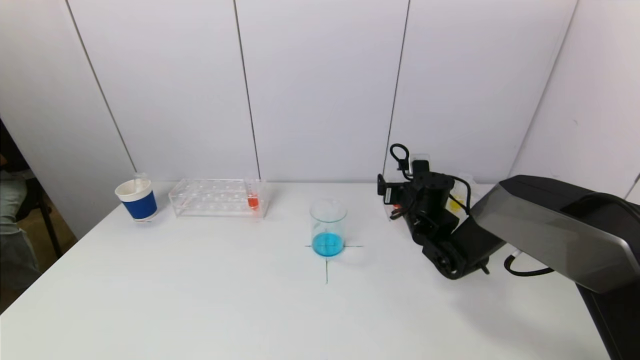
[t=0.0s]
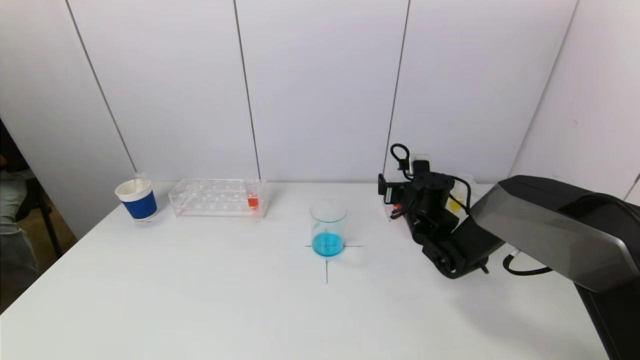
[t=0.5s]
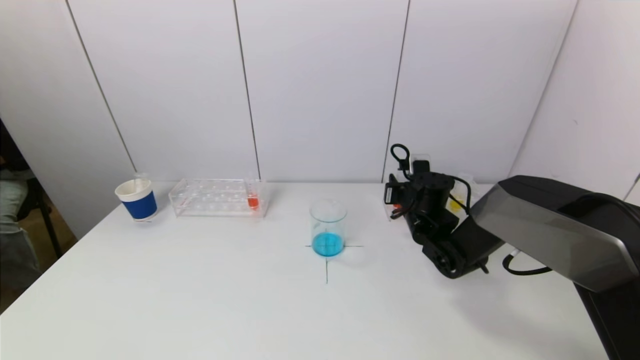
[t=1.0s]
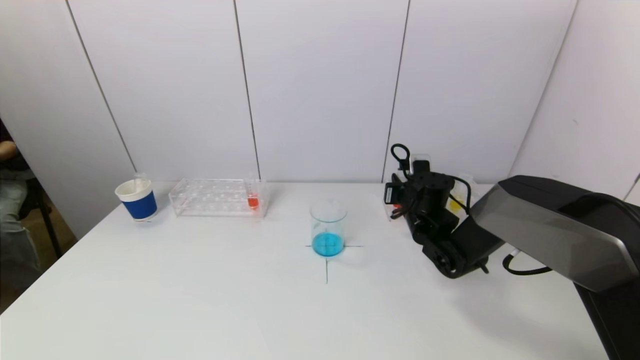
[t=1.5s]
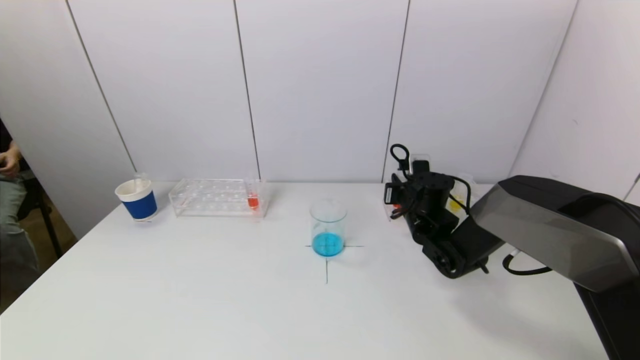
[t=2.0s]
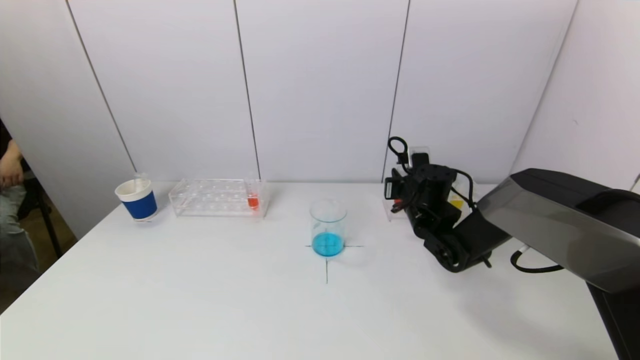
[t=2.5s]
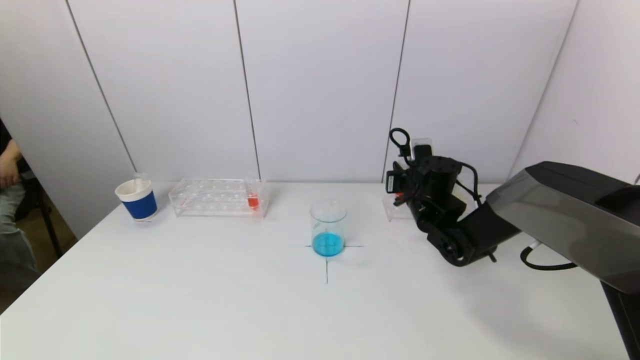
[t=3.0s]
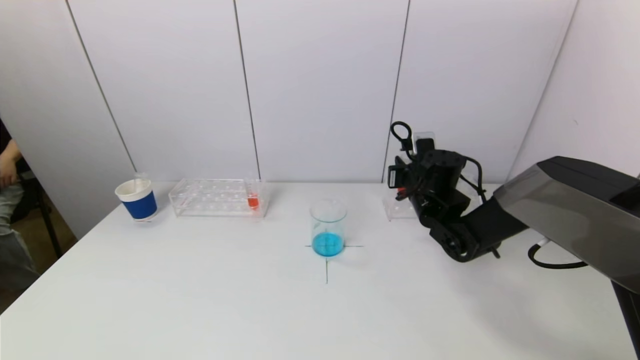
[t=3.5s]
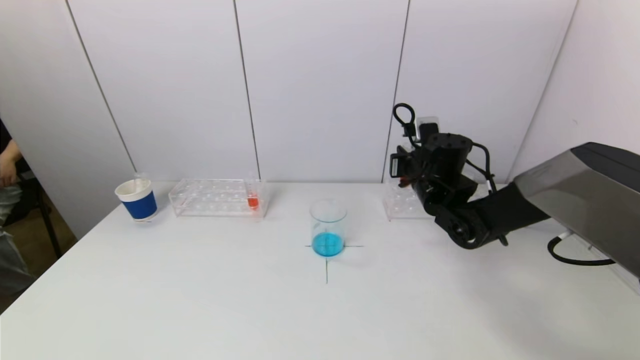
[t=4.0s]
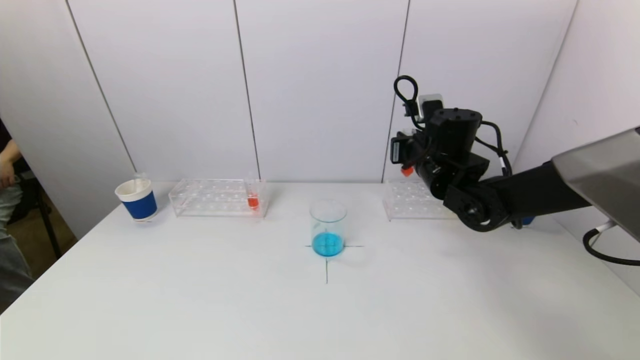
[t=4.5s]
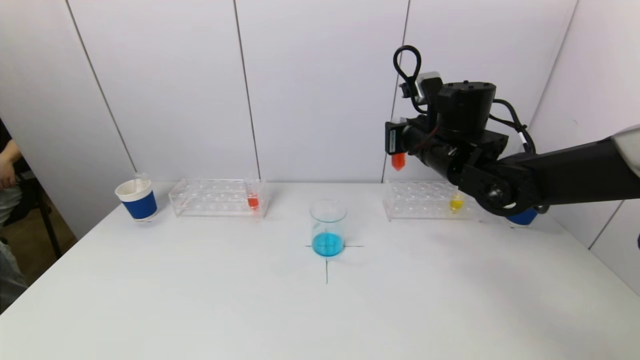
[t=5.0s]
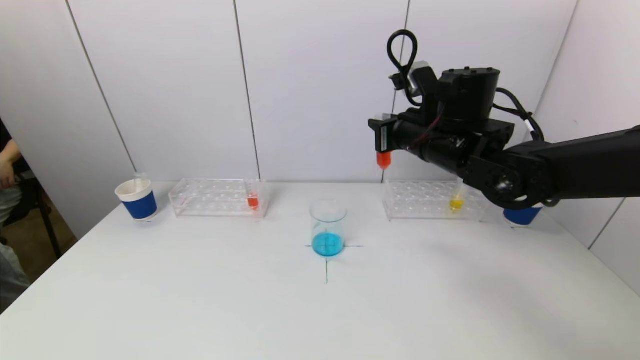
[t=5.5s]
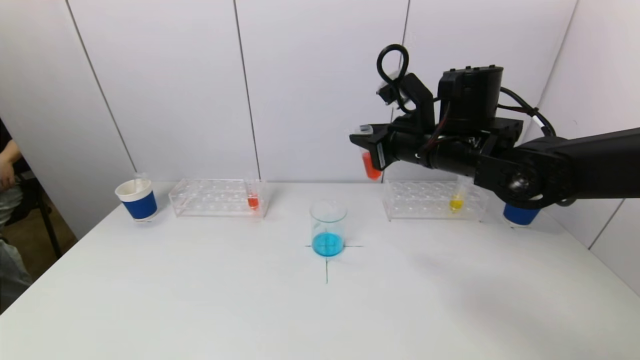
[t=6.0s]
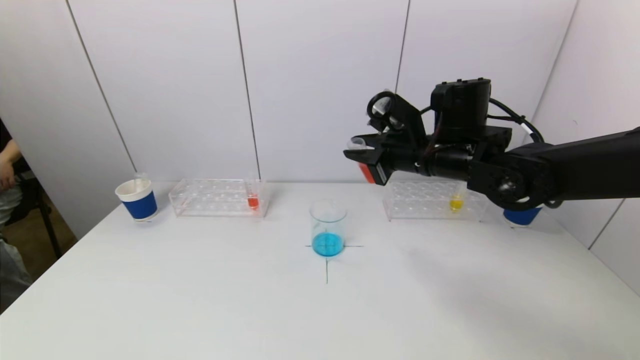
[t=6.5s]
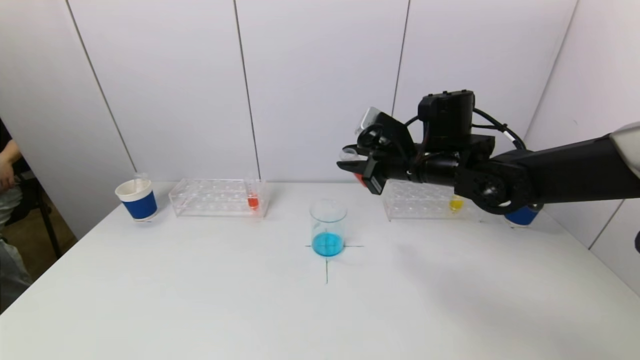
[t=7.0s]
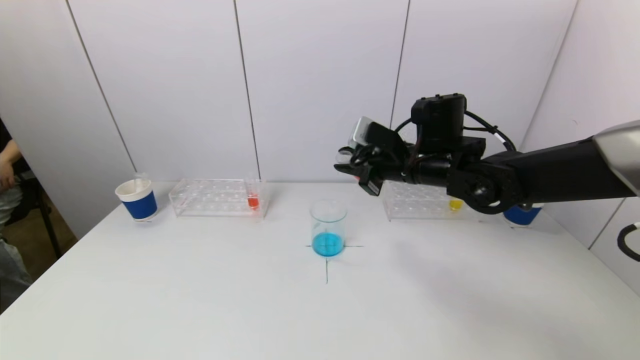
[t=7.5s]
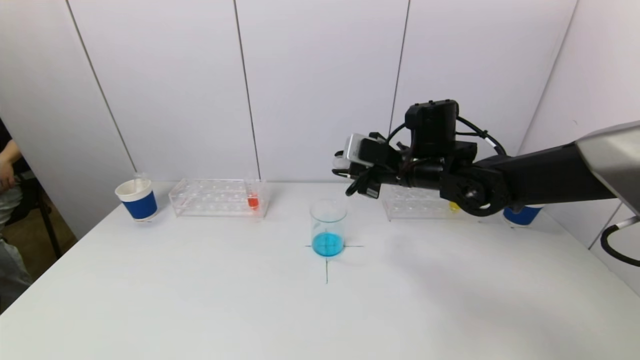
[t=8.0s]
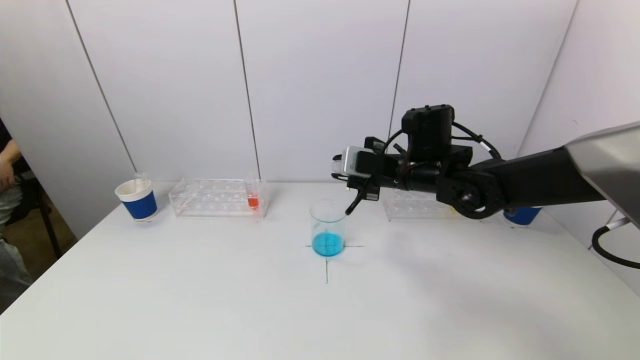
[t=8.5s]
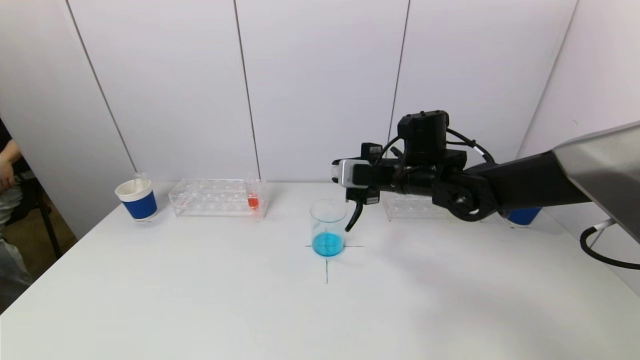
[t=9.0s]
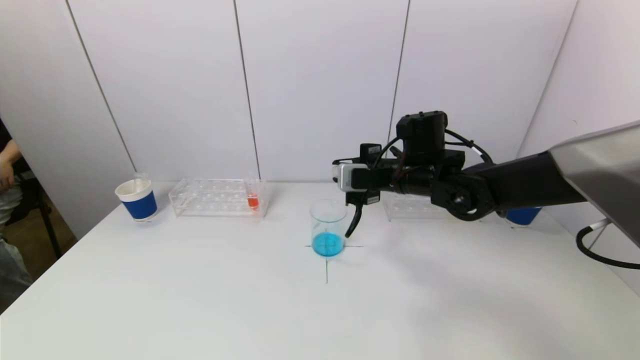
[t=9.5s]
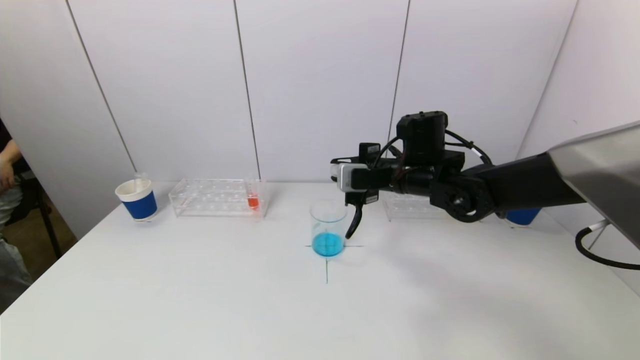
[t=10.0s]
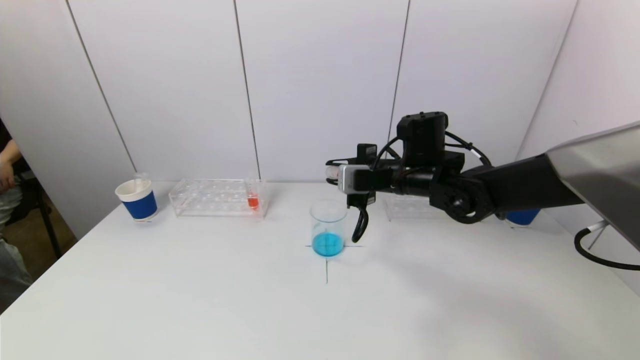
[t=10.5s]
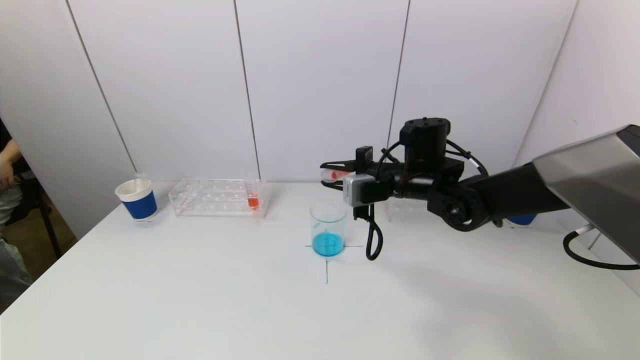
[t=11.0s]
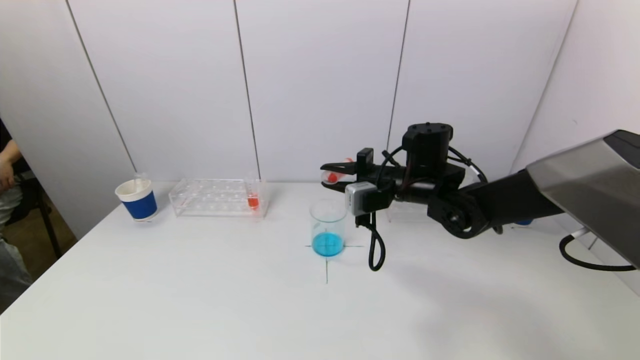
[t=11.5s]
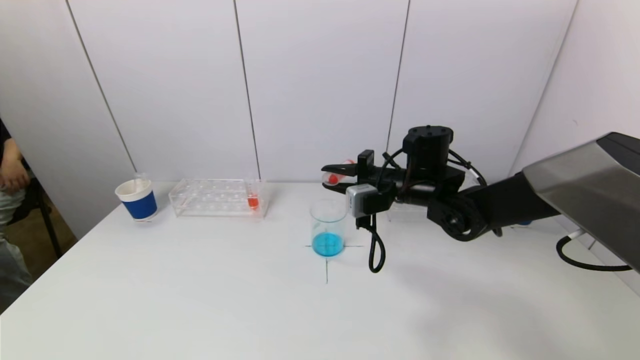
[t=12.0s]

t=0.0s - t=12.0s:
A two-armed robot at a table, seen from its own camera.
Task of the whole recording: pick up a test tube with pigment on left test tube rack and a test tube with pigment on right test tube rack by grippers and pour them into the beaker.
t=0.0s - t=2.0s: The right gripper closes up.
t=2.0s - t=4.0s: The right gripper goes roughly 10 cm upward.
t=4.0s - t=6.0s: The right gripper shifts about 10 cm upward and backward.
t=6.0s - t=8.0s: The right gripper ends up approximately 5 cm from where it was.
t=8.0s - t=10.0s: The grippers move only a little.
t=10.0s - t=12.0s: The grippers make only small movements.

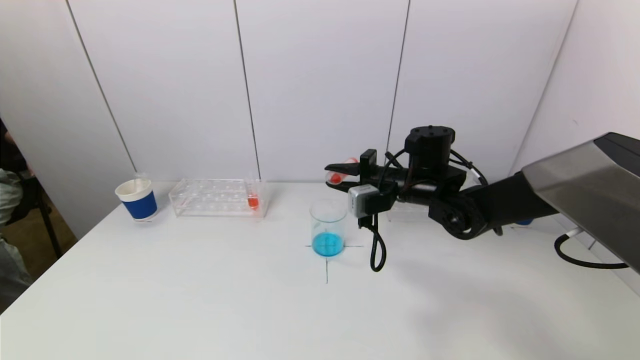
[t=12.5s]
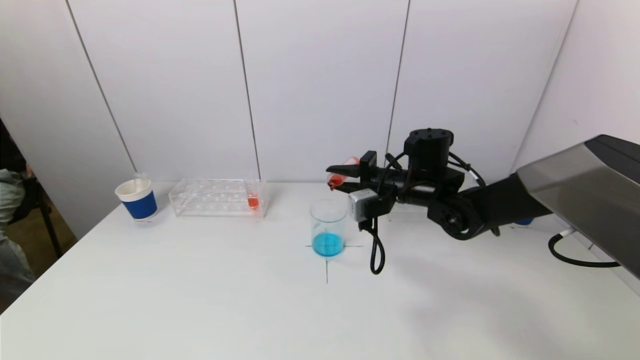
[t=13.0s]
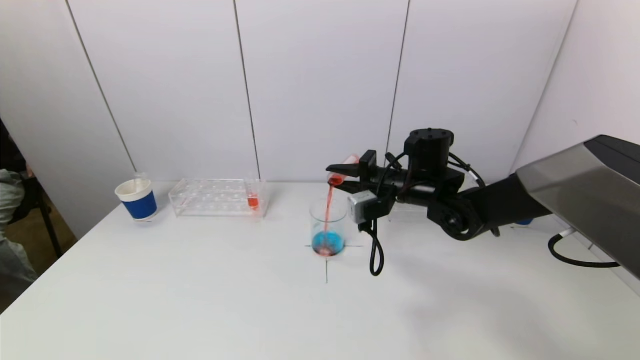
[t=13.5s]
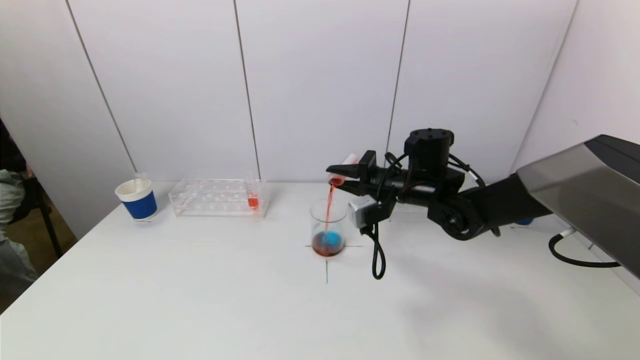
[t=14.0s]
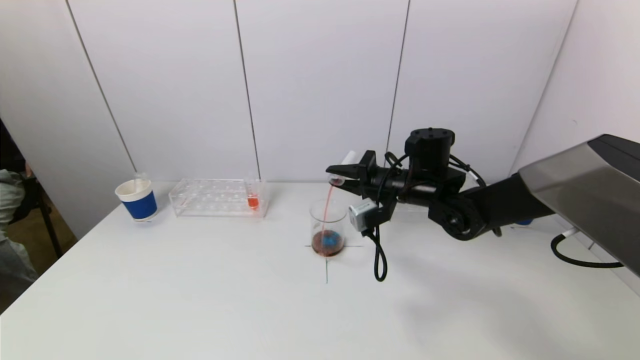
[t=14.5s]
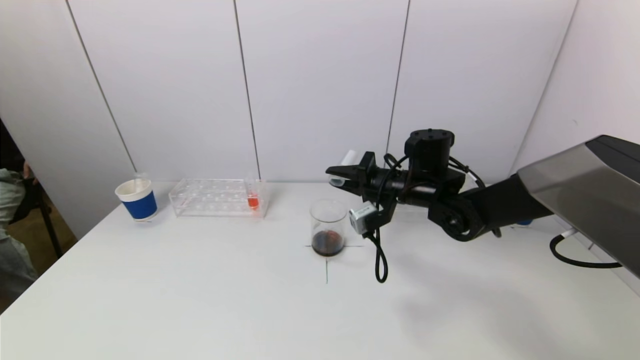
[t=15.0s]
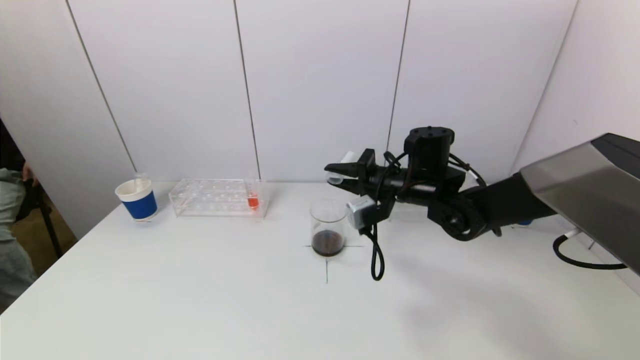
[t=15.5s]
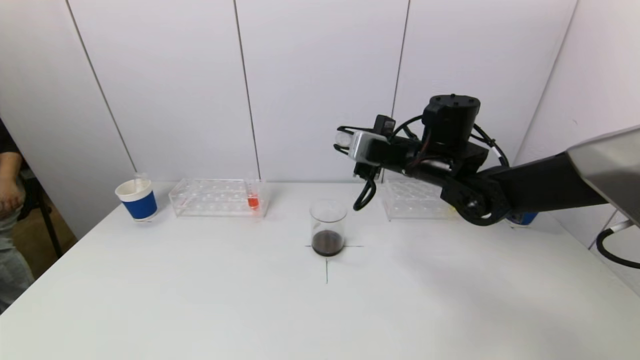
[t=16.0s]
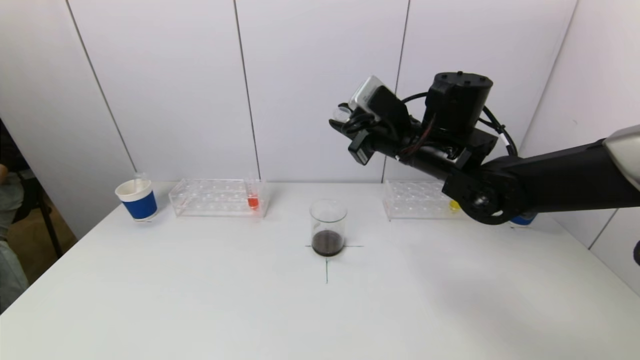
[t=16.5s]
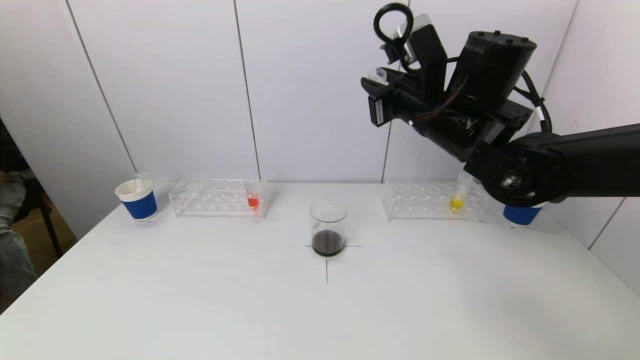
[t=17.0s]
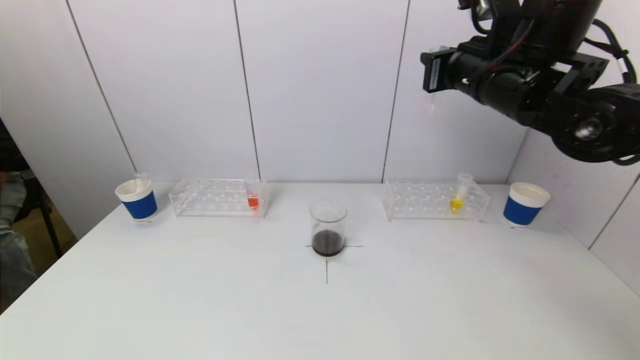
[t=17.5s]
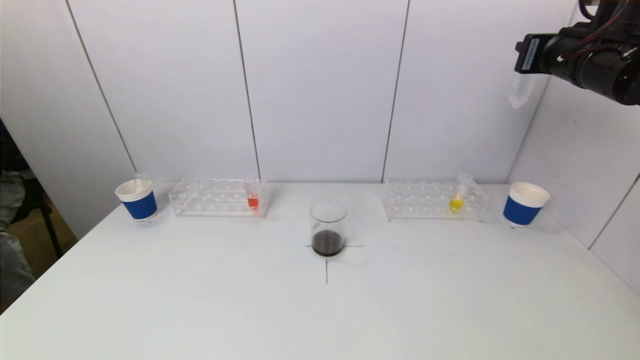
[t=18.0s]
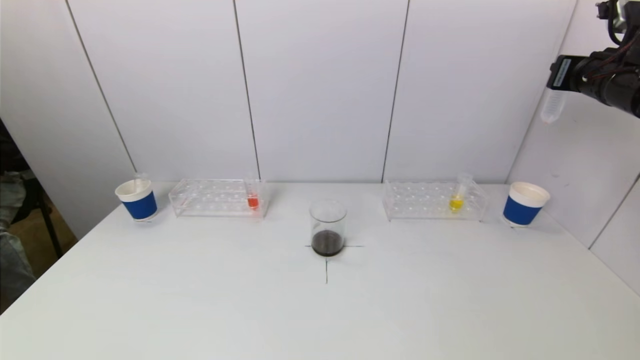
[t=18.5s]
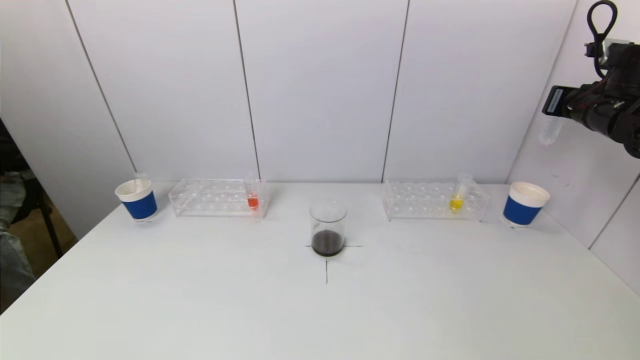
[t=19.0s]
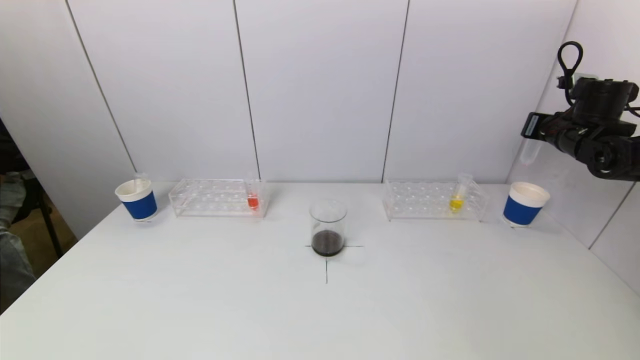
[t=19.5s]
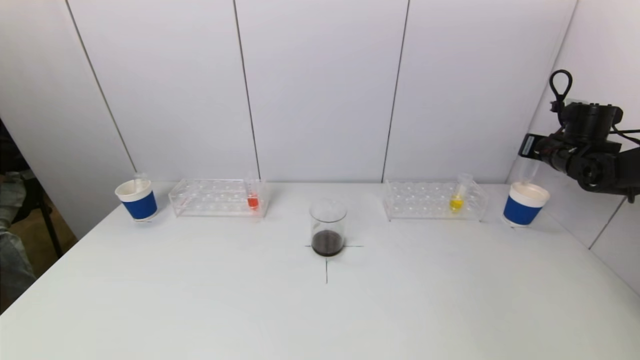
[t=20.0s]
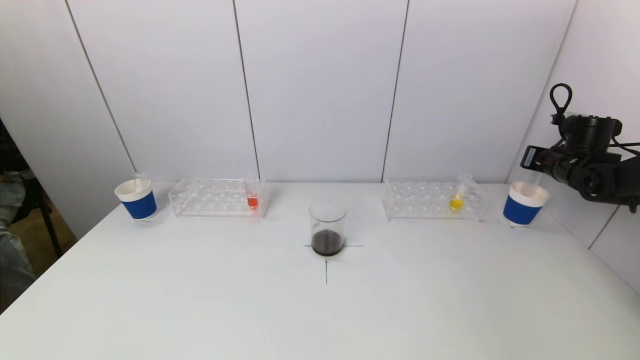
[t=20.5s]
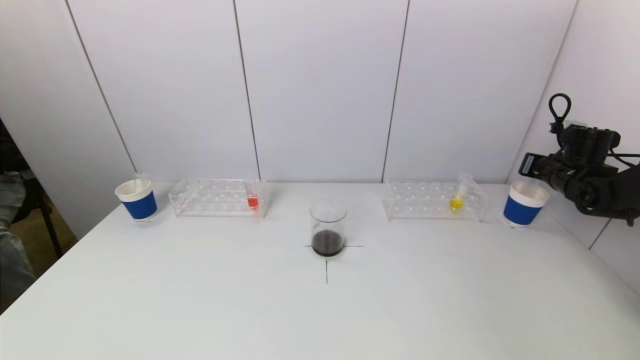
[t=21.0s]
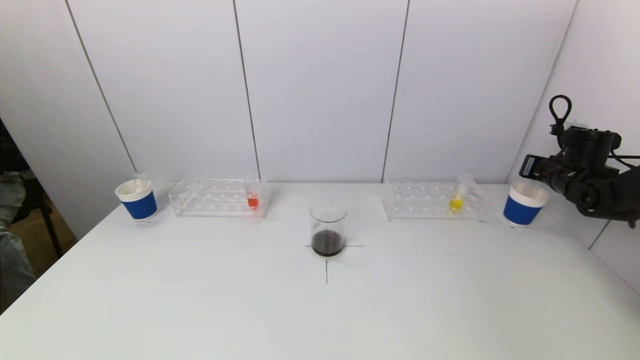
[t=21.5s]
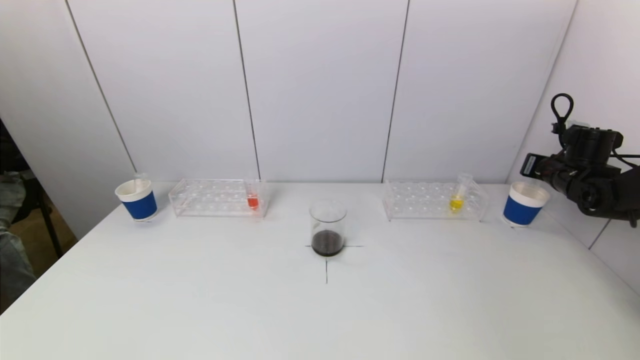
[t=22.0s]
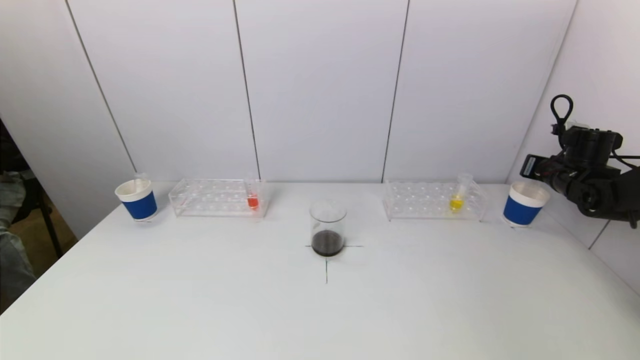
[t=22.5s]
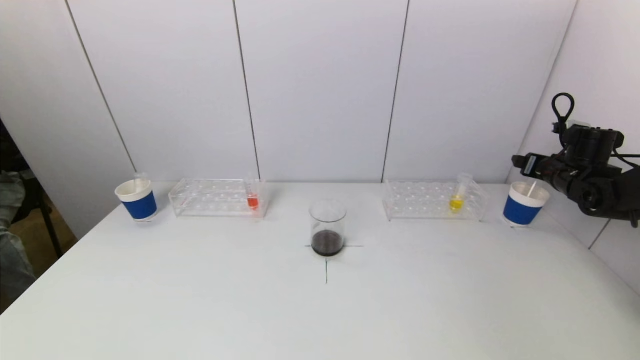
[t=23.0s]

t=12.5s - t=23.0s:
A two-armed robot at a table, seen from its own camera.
Task of the whole recording: pick up a test tube with pigment on left test tube rack and a test tube with pigment on right test tube rack by grippers and pour them into the beaker.
Step, t=12.5s - t=15.0s: Pour the red reagent into the graduated cylinder with the right gripper.
t=12.5s - t=14.5s: There are only small adjustments of the grippers.
t=14.5s - t=16.5s: The right gripper heads upward, covering approximately 10 cm.
t=16.5s - t=19.0s: The right gripper goes roughly 30 cm to the right.
t=19.0s - t=21.0s: The right gripper is displaced downward by roughly 15 cm.
t=21.0s - t=23.0s: The right gripper opens up.
